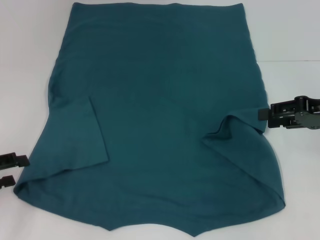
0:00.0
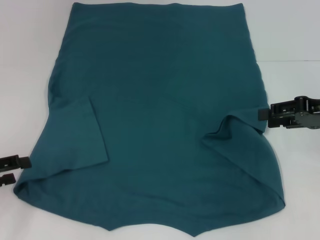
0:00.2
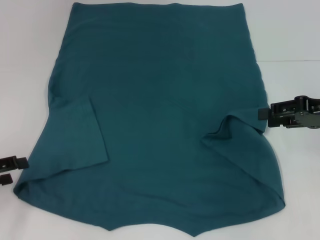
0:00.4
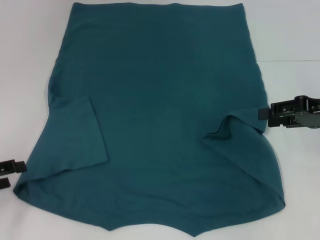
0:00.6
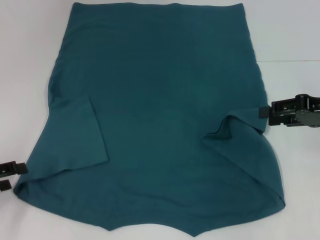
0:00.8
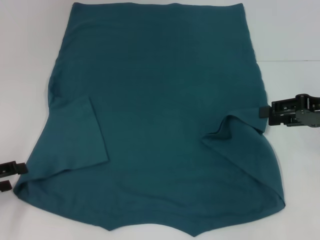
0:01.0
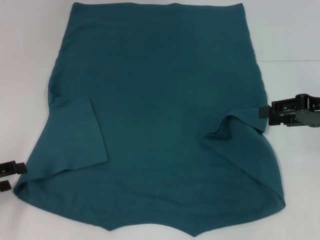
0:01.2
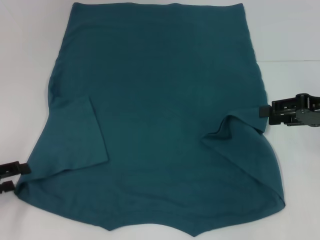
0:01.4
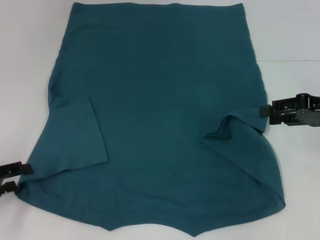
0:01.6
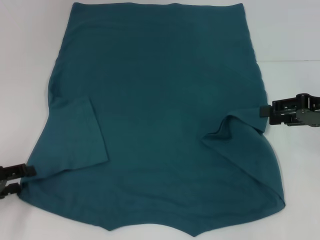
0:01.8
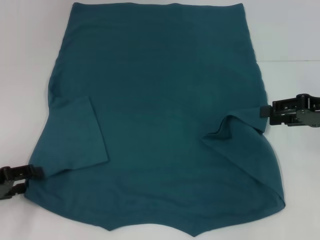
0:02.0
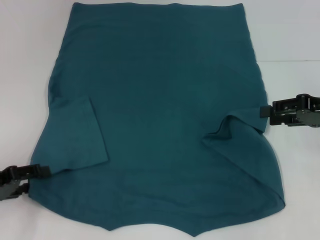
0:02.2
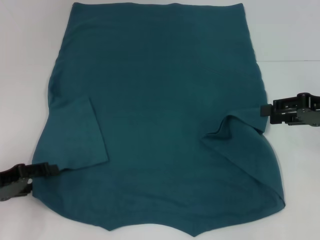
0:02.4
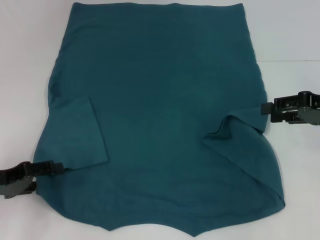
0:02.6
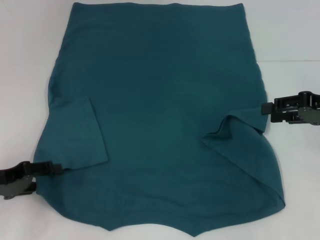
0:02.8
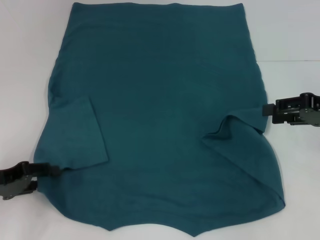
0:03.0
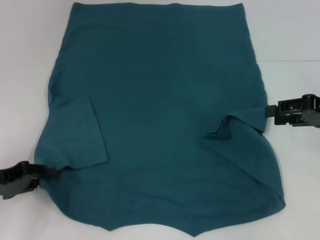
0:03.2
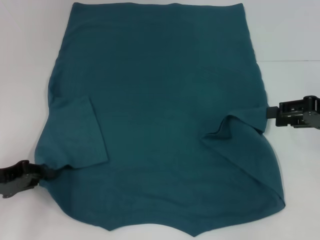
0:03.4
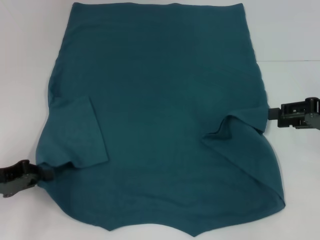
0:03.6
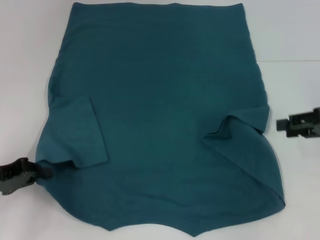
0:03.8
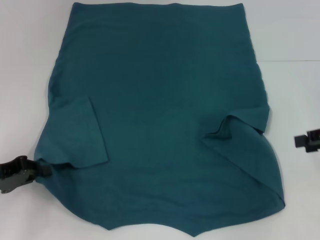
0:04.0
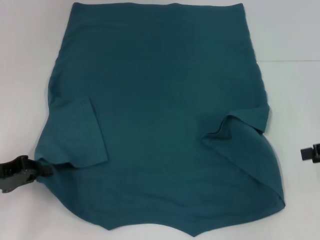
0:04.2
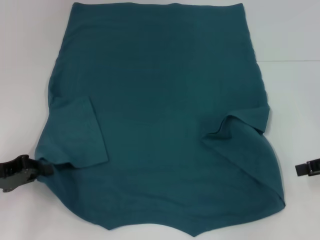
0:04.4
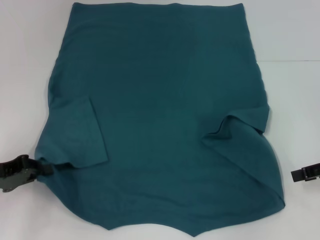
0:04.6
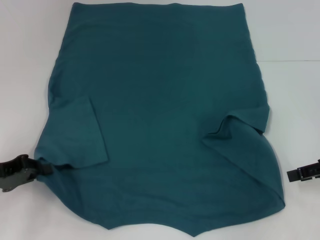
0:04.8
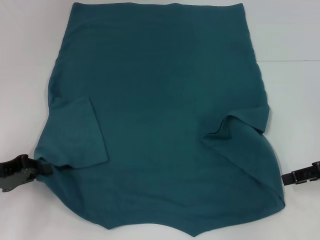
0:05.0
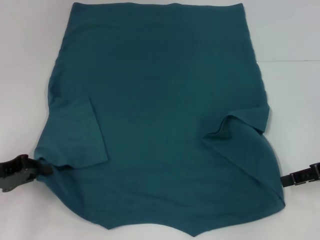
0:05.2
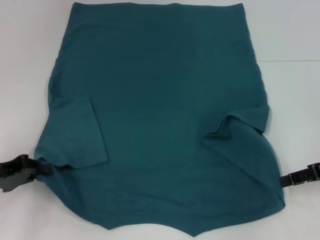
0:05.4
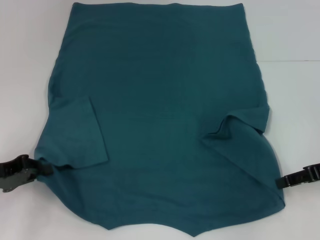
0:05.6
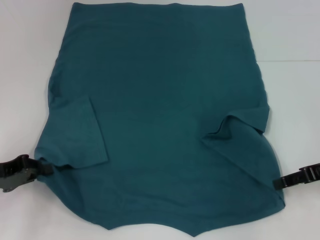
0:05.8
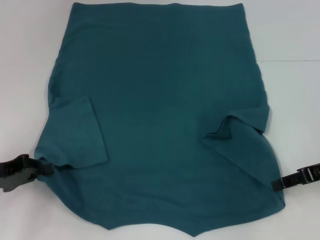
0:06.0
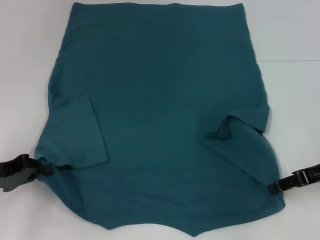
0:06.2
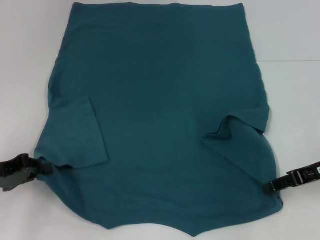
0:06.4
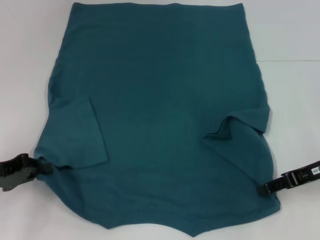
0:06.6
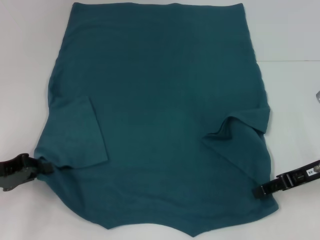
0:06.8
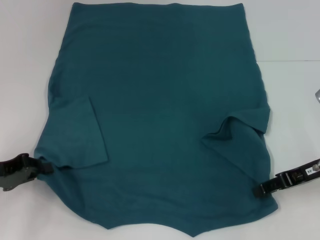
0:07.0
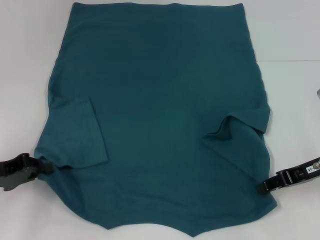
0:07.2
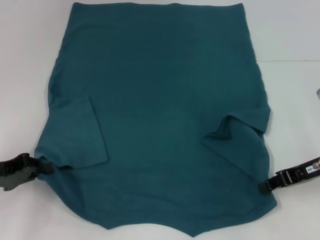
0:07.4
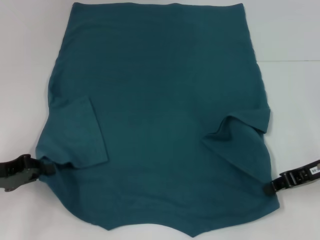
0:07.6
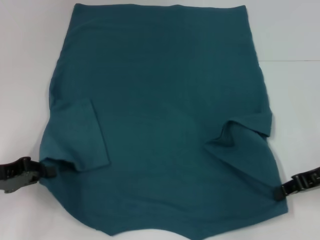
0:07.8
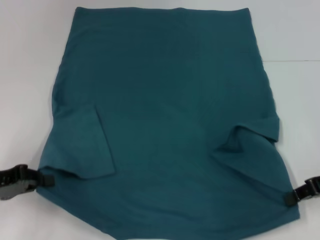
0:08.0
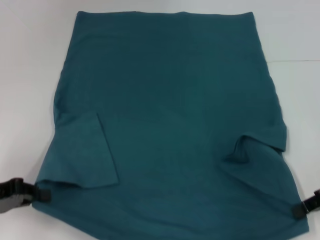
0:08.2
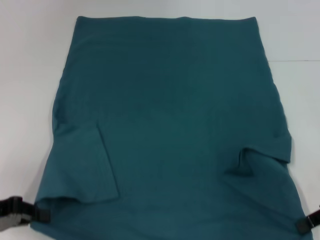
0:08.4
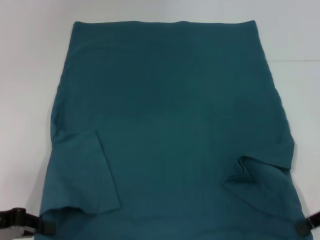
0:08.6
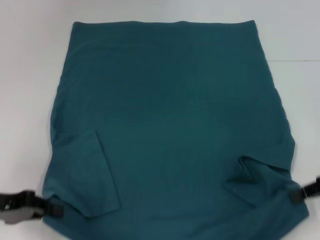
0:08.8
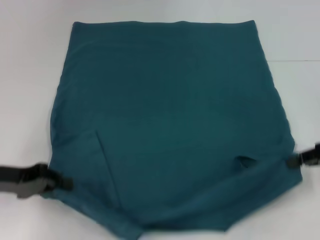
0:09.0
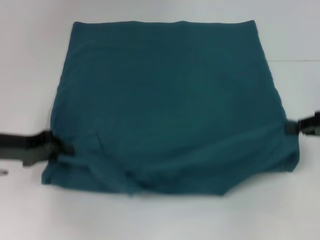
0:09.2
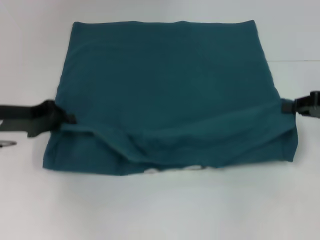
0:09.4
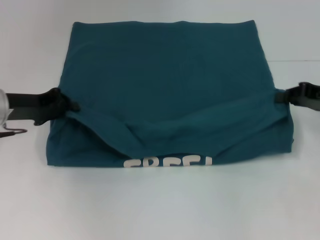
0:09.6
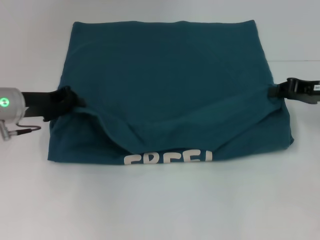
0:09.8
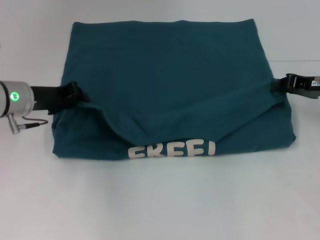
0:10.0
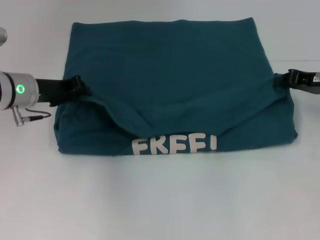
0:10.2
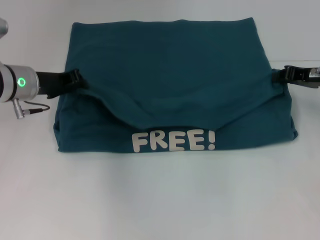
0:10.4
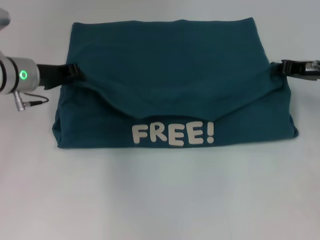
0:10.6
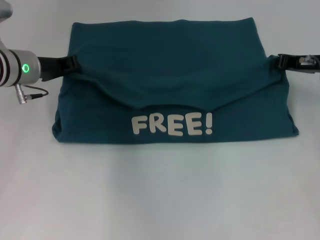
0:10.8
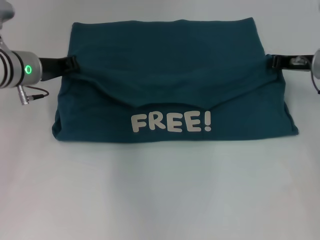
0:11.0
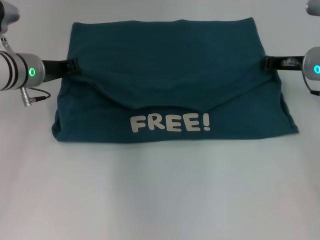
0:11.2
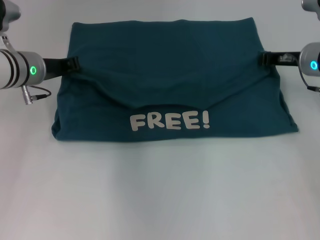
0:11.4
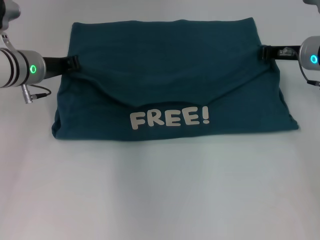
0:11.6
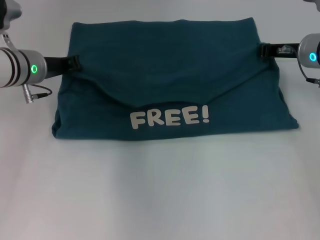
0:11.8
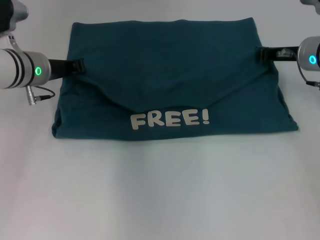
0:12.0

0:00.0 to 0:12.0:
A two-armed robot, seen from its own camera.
Step, 0:00.0 to 0:03.6: Grab the bottom left corner with your left hand.
Step, 0:03.8 to 0:07.6: Grab the bottom right corner with your right hand.
0:00.0 to 0:03.0: The grippers stay close to where they were, moving slightly.
0:03.0 to 0:04.4: The right gripper ends up some 5 cm from where it was; the left gripper closes its fingers.
0:04.4 to 0:06.0: The right gripper shifts by approximately 5 cm.
0:06.0 to 0:07.6: The right gripper closes.
0:07.6 to 0:09.0: The right gripper is displaced to the right by approximately 5 cm.
0:09.0 to 0:10.4: The left gripper is displaced forward and to the right by some 15 cm. Meanwhile the right gripper is displaced forward by some 10 cm.
0:10.4 to 0:12.0: The right gripper moves to the left, roughly 5 cm.

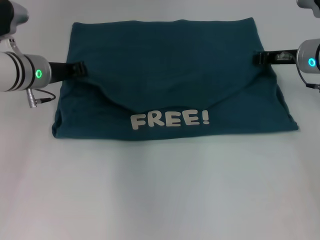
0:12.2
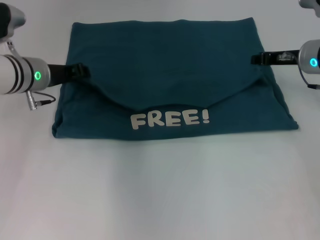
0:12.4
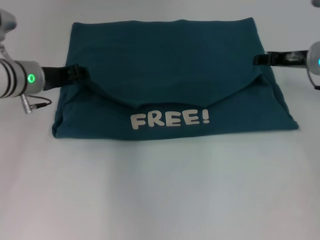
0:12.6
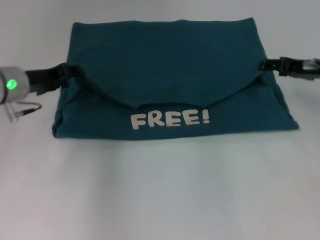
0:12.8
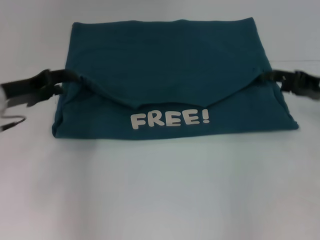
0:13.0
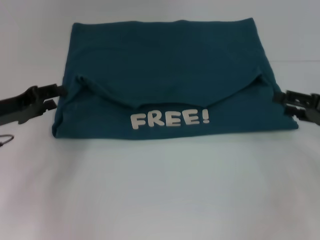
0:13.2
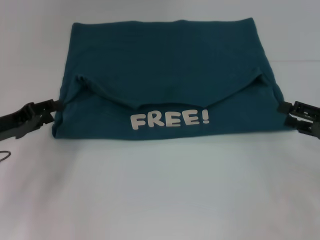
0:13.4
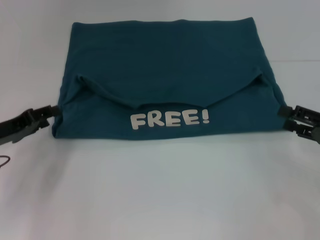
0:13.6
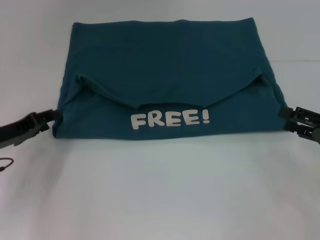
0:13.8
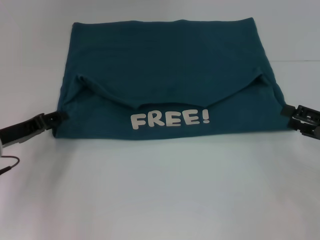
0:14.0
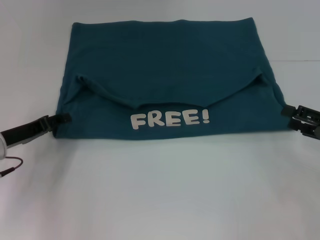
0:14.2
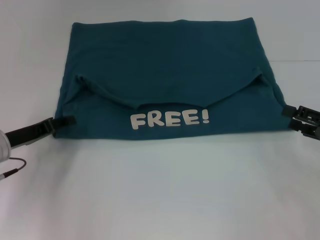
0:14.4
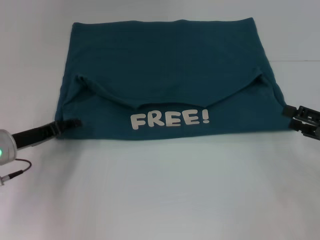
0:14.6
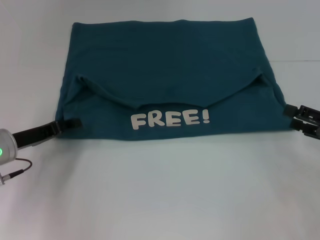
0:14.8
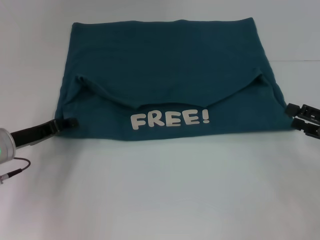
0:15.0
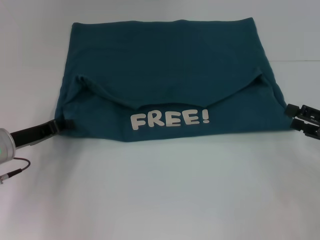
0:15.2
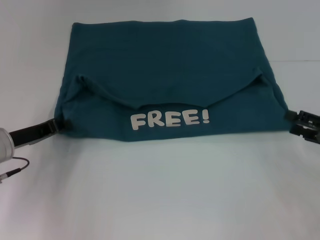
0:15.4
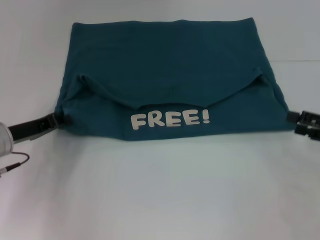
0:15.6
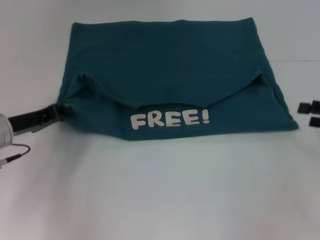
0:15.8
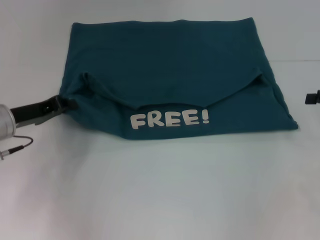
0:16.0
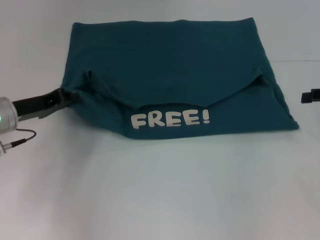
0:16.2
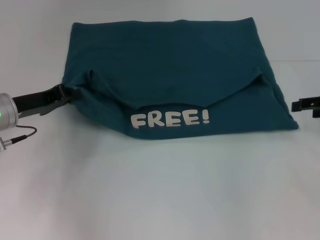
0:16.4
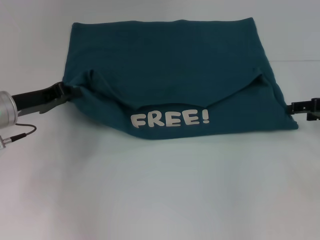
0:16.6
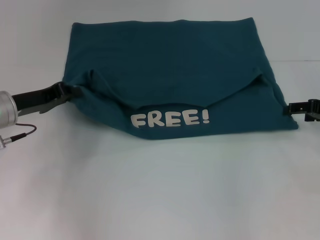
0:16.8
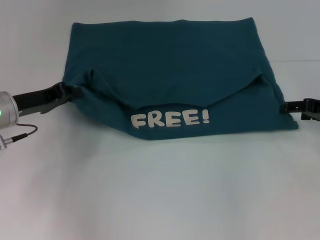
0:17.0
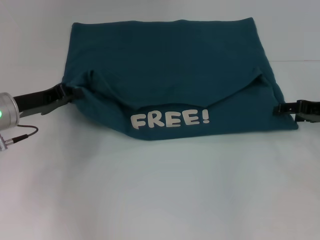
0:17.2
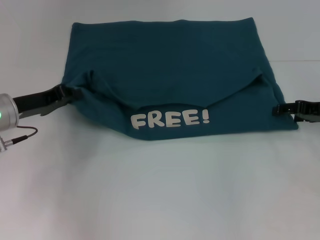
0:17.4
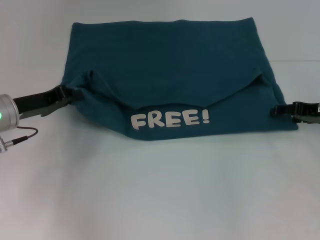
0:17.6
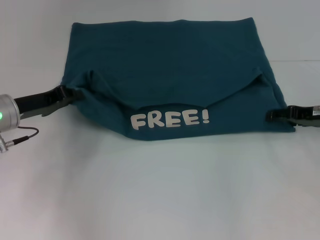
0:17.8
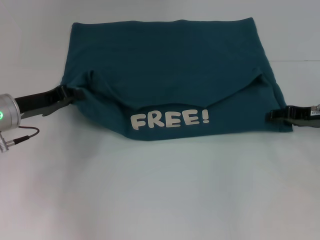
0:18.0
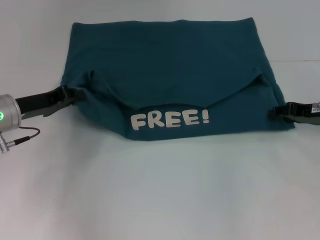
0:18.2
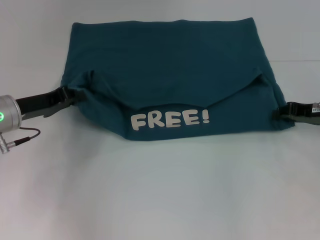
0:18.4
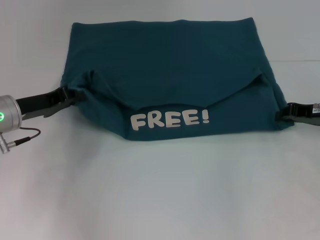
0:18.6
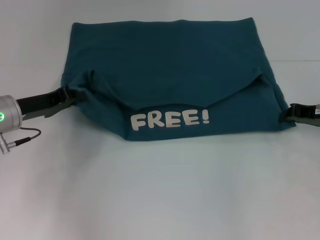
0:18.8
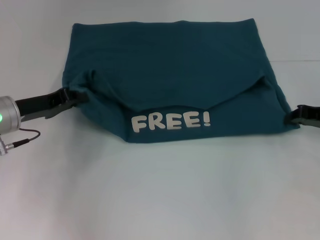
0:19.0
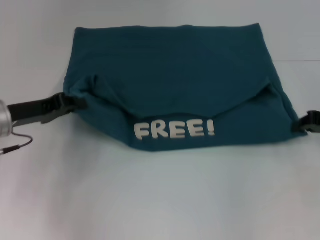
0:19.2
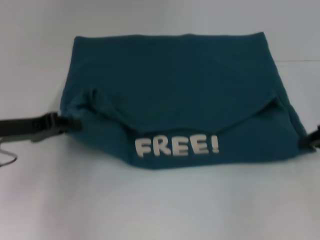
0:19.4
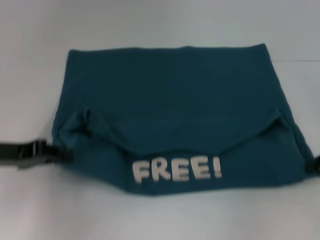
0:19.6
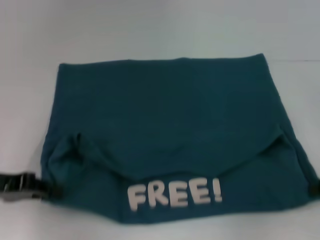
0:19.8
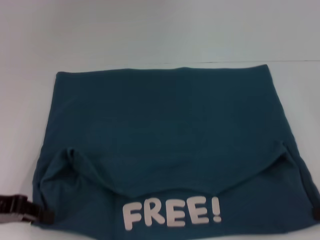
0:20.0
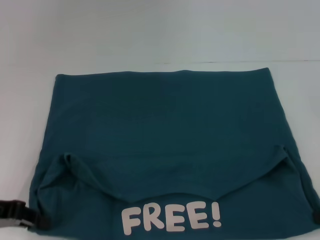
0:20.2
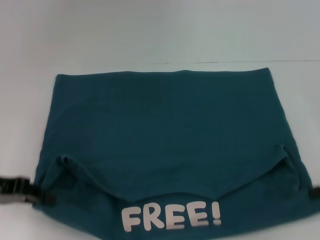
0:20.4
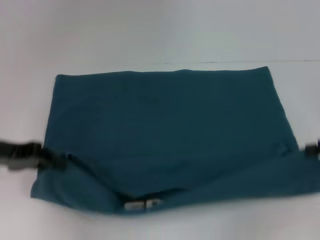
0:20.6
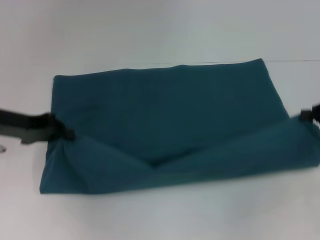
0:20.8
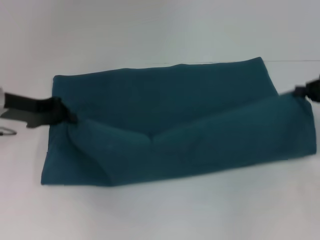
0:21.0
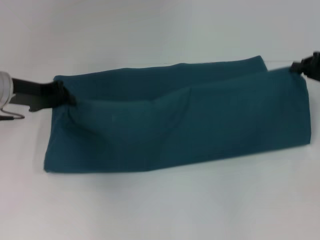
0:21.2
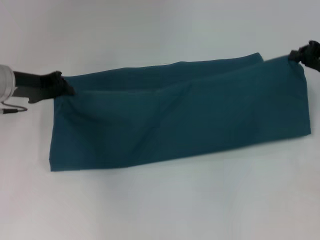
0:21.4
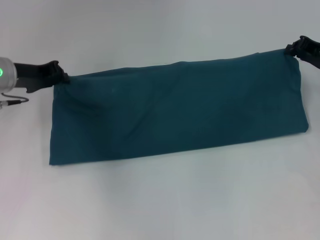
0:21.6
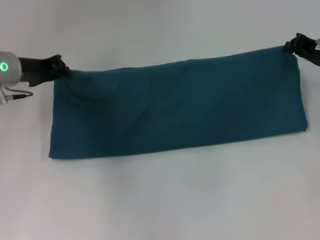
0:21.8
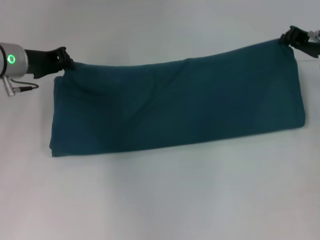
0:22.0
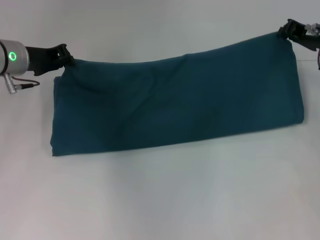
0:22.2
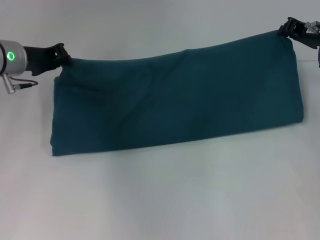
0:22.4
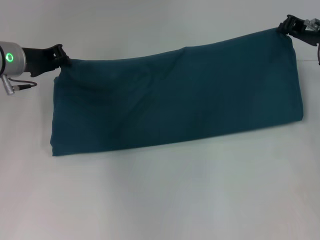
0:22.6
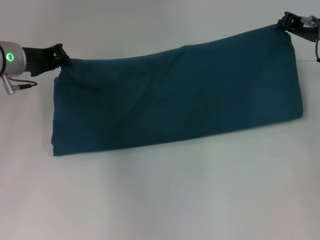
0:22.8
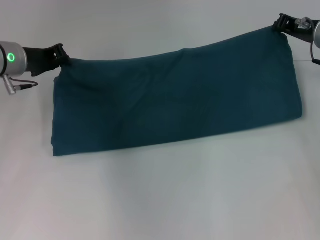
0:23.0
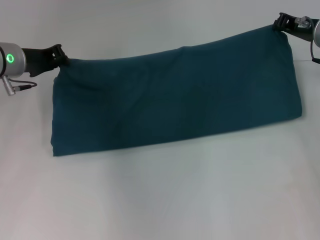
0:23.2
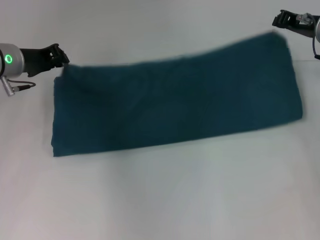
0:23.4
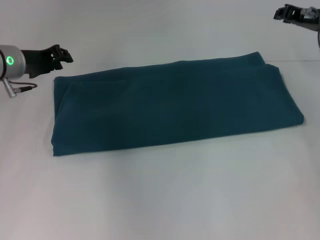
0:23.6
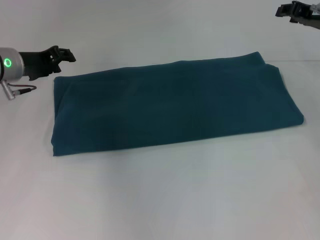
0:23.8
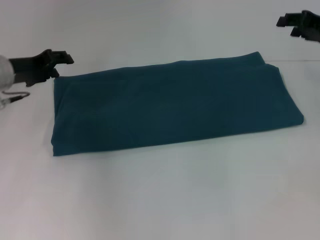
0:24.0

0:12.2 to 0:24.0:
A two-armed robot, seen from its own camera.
Step, 0:12.8 to 0:20.2: Pull the clothes with your left hand.
Step, 0:12.8 to 0:20.2: Pull the clothes with your right hand.
Step, 0:20.4 to 0:23.4: Fold the clothes to the right.
0:12.2 to 0:13.6: The right gripper moves backward and to the right, roughly 20 cm, and opens up. The left gripper shifts roughly 15 cm backward, to the left and downward, and opens up.
0:13.6 to 0:15.2: The grippers stay close to where they were, moving slightly.
0:15.2 to 0:16.6: The right gripper goes about 10 cm forward, while the left gripper moves roughly 5 cm, and closes its fingers.
0:16.6 to 0:18.2: The grippers move only a little.
0:18.2 to 0:19.6: The right gripper is displaced backward and to the right by about 10 cm, and closes up, while the left gripper heads backward, covering roughly 5 cm.
0:19.6 to 0:21.0: The left gripper moves forward, some 10 cm, while the right gripper changes place by roughly 5 cm.
0:21.0 to 0:22.6: The left gripper moves forward, approximately 5 cm. The right gripper shifts about 10 cm forward and to the left.
0:22.6 to 0:24.0: The left gripper opens its fingers. The right gripper opens up.
